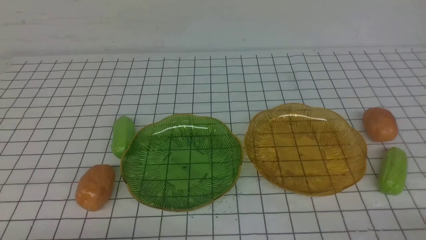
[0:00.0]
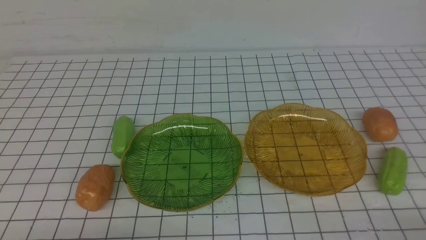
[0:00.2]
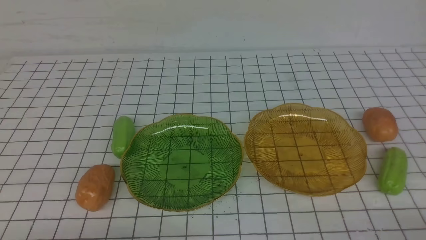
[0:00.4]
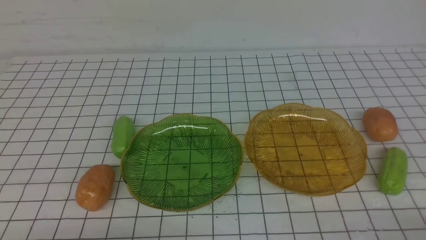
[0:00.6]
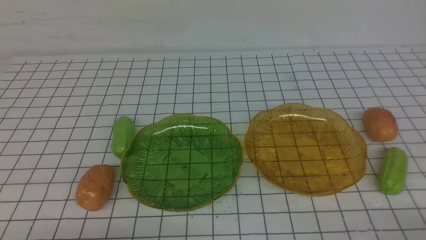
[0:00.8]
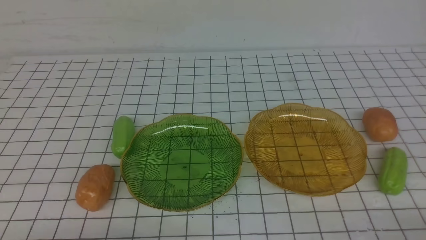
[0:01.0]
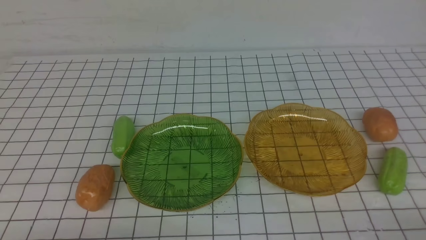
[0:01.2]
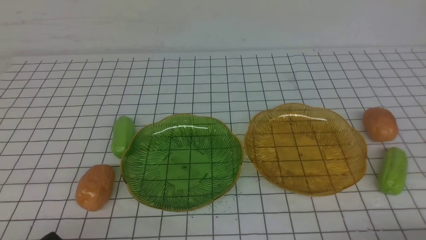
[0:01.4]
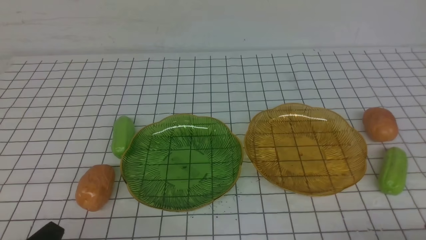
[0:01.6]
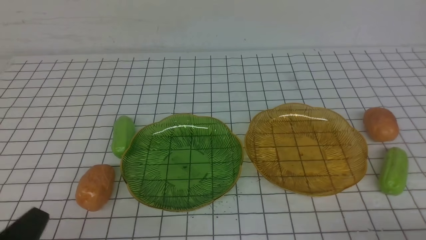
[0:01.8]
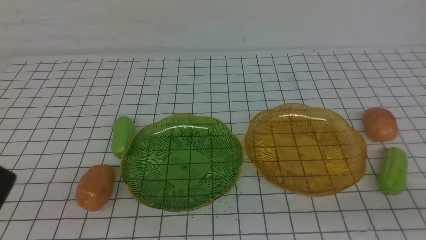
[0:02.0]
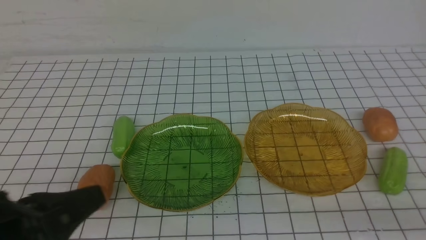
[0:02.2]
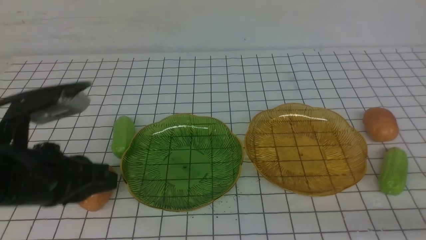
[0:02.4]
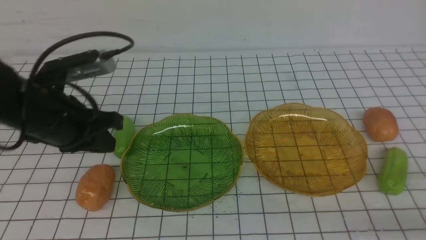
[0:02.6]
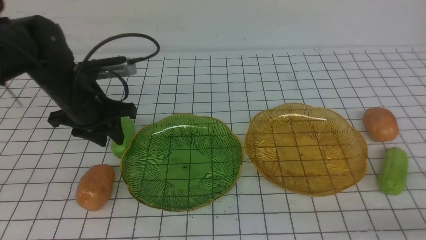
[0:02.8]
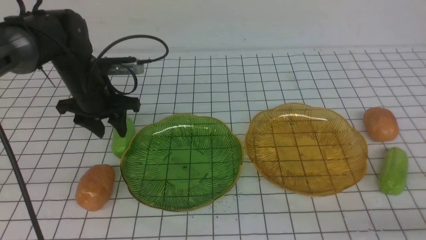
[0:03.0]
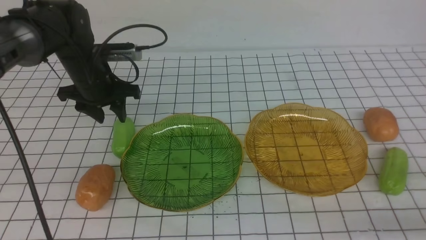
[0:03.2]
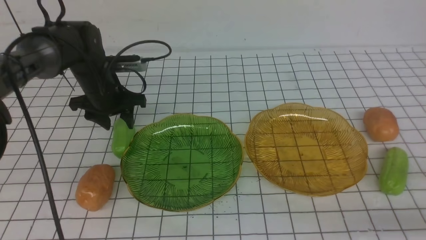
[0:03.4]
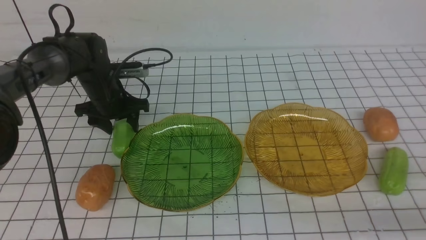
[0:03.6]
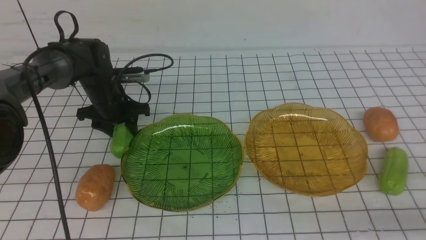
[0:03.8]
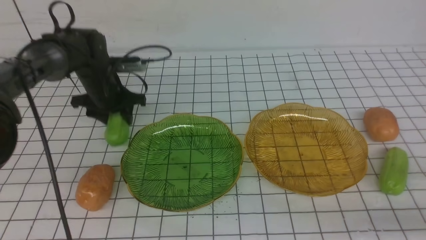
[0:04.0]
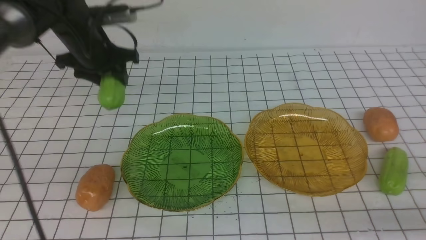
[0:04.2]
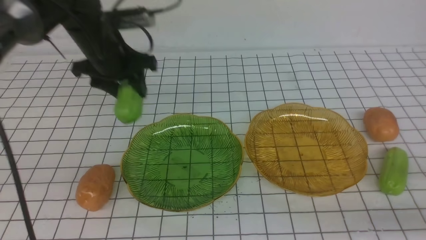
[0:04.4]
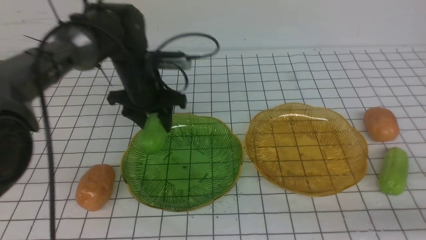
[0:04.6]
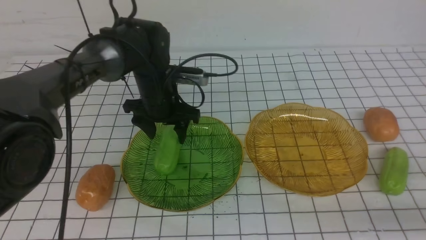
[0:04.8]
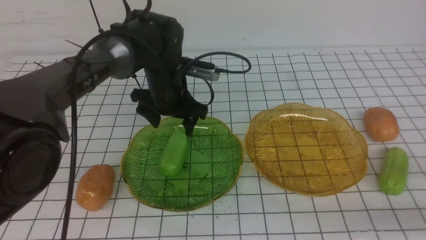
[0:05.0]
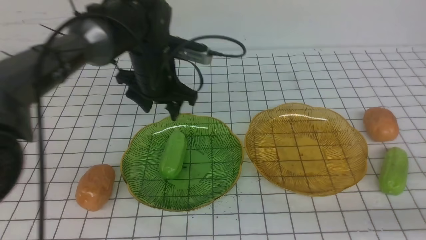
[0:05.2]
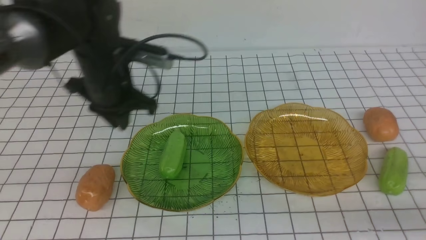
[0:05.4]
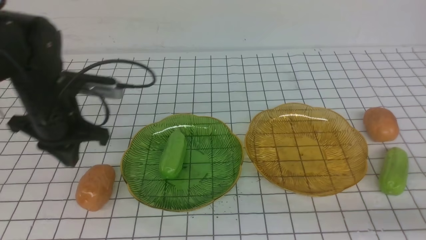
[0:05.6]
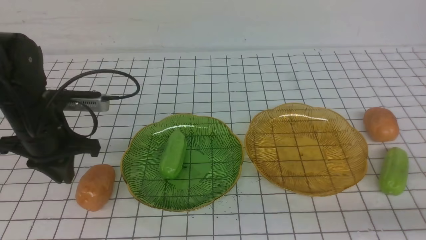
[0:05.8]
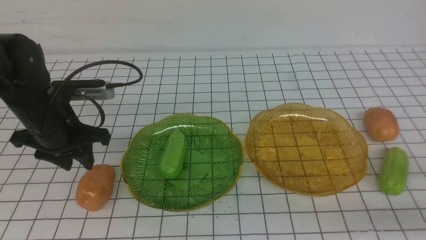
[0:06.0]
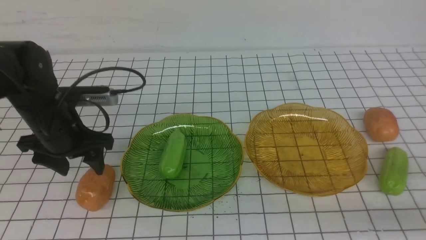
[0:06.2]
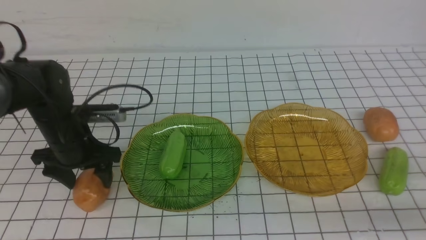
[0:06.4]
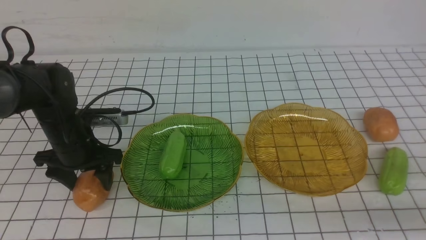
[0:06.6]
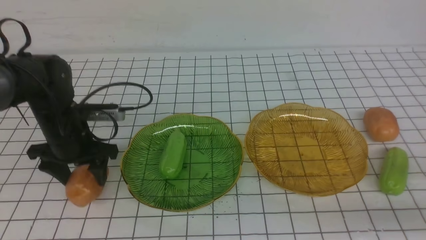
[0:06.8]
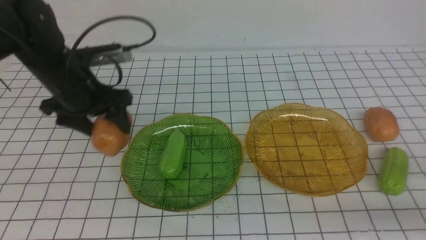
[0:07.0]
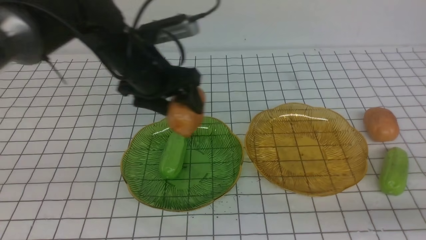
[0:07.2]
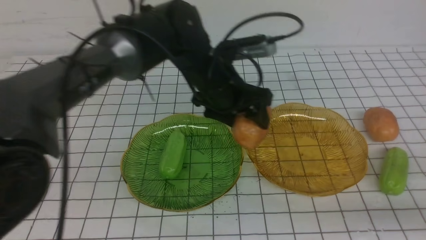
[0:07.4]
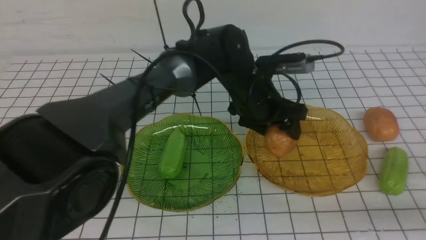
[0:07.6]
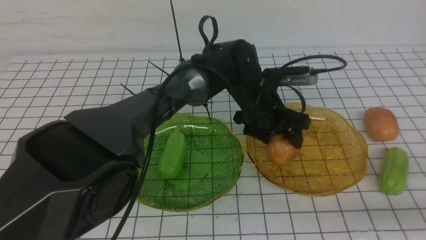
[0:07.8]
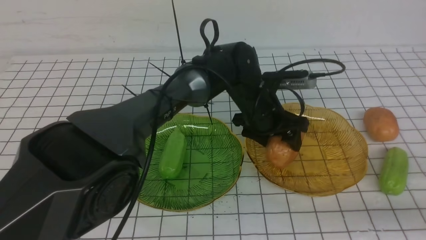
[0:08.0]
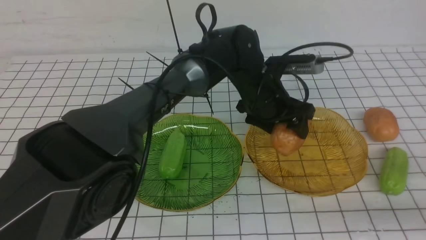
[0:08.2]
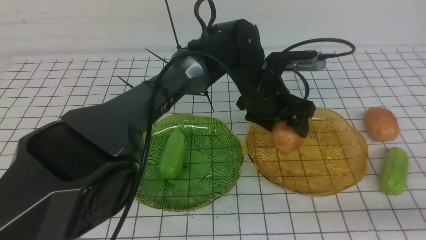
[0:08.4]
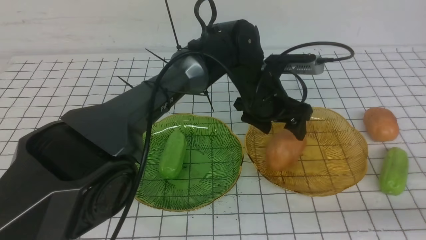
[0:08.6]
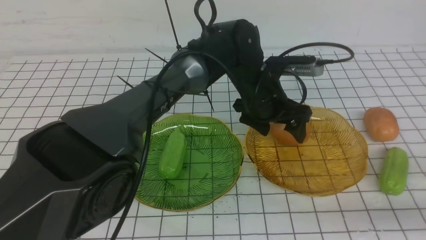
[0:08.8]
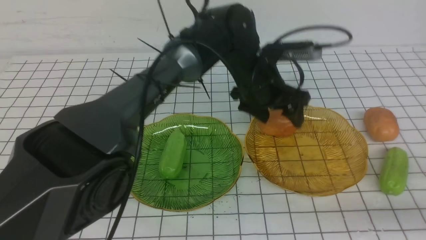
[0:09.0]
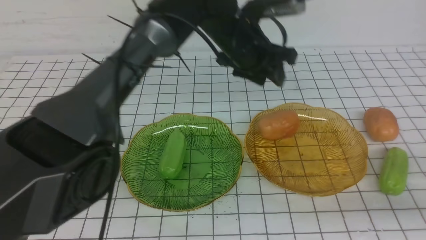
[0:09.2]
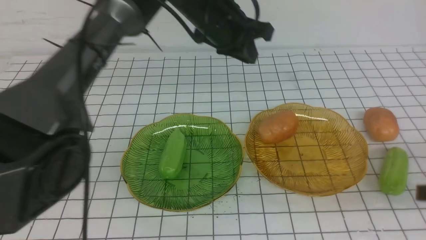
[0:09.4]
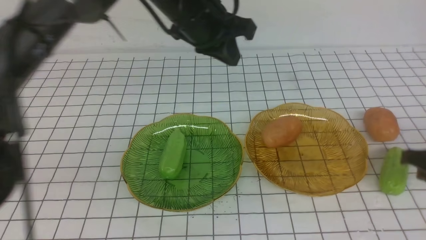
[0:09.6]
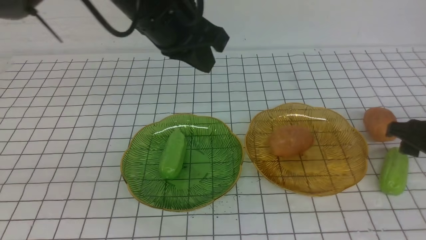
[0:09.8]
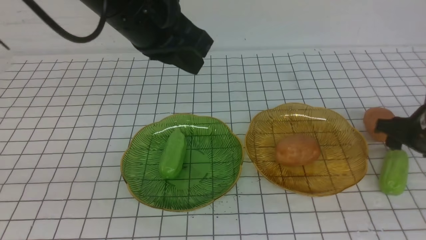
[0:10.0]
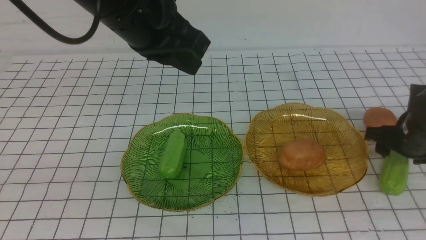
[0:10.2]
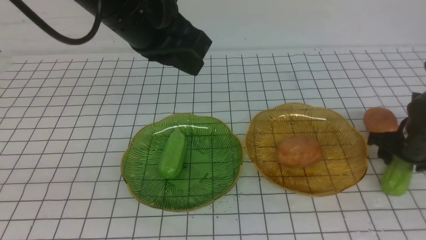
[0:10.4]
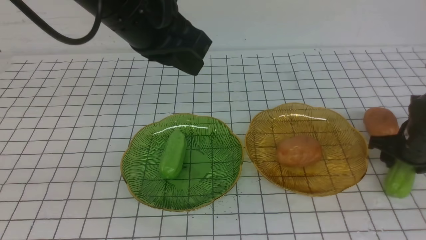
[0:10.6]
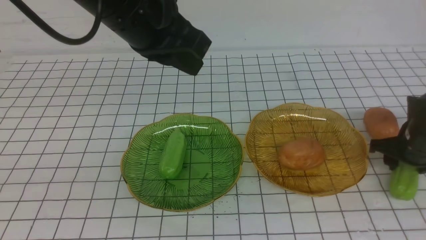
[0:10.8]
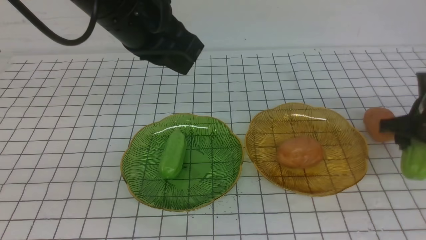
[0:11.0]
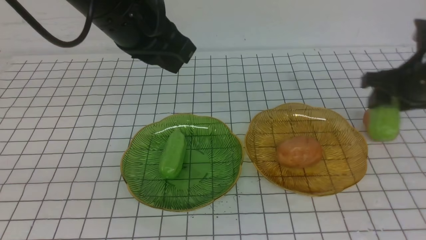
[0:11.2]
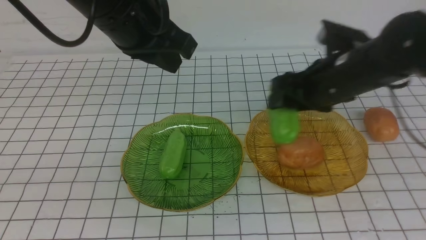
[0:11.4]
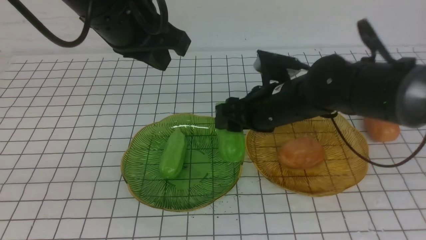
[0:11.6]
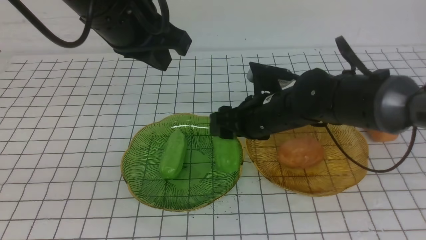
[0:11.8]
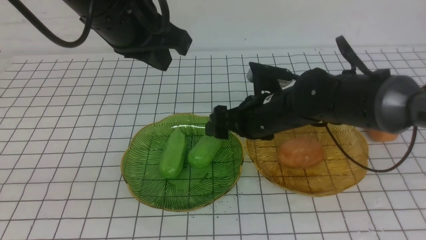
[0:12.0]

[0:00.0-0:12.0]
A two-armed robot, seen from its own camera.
Step, 0:00.0 to 0:04.8: use the left arm to grab a chayote and put it into the left plate.
Step, 0:05.0 to 0:09.0: Grab a potato with your left arm and put it on the right plate.
0:01.6 to 0:03.0: The left gripper heads forward, covering approximately 35 cm, and opens, while the right gripper heads upward and forward, covering some 10 cm.
0:03.0 to 0:04.4: The left gripper goes downward and returns, approximately 5 cm each way.
0:04.4 to 0:06.0: The left gripper moves backward and to the left, about 15 cm, and closes, then reopens.
0:06.0 to 0:07.6: The left gripper heads to the right, covering some 30 cm.
0:07.6 to 0:09.0: There are only small adjustments of the grippers.
0:09.0 to 0:10.4: The left gripper shifts some 25 cm upward, to the left and backward, and closes, while the right gripper heads forward and downward, covering approximately 25 cm, and opens.
0:10.4 to 0:12.0: The right gripper shifts roughly 25 cm to the left.

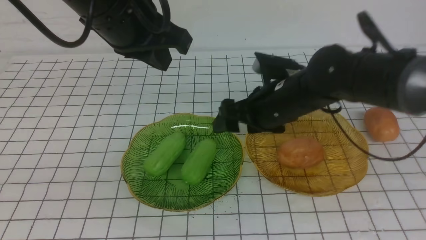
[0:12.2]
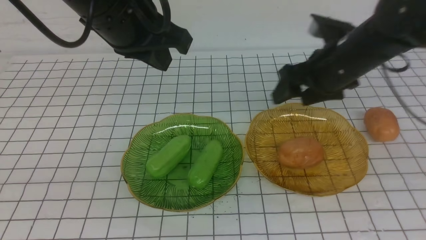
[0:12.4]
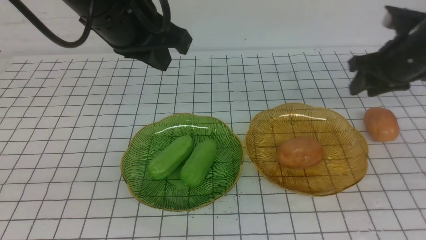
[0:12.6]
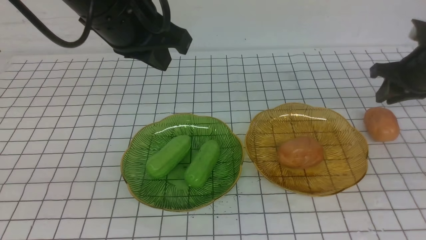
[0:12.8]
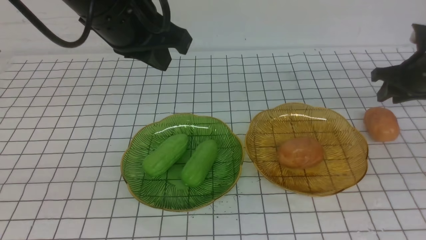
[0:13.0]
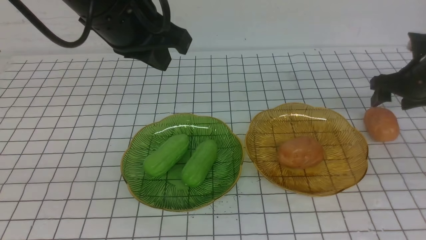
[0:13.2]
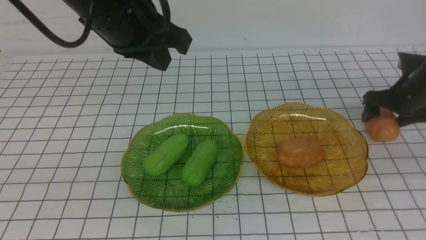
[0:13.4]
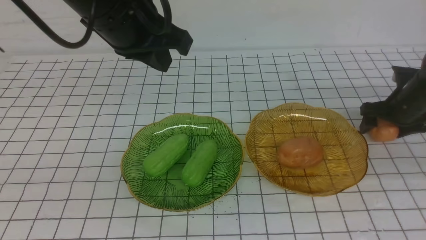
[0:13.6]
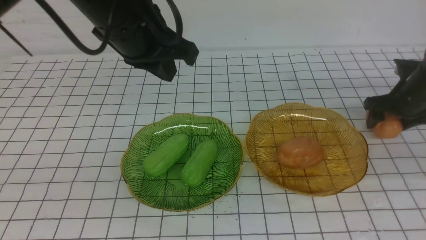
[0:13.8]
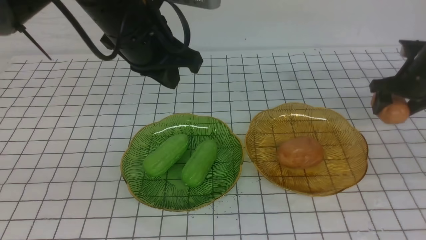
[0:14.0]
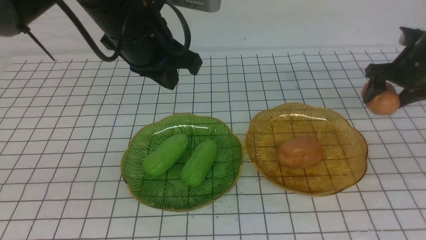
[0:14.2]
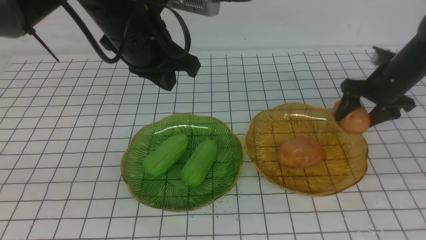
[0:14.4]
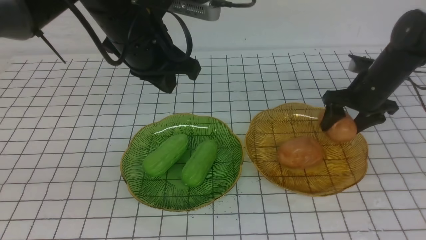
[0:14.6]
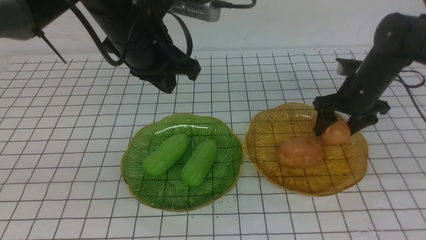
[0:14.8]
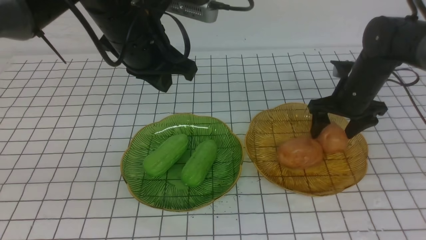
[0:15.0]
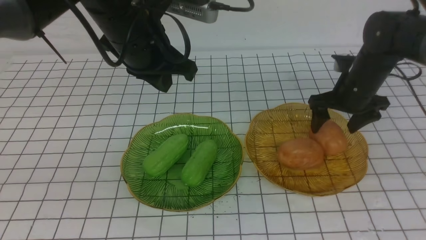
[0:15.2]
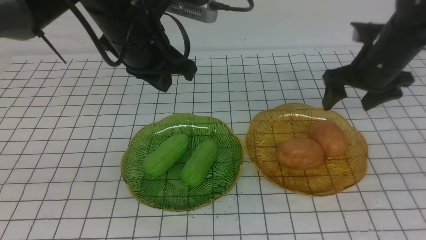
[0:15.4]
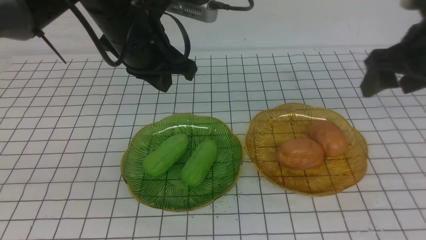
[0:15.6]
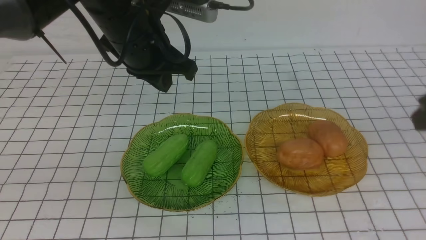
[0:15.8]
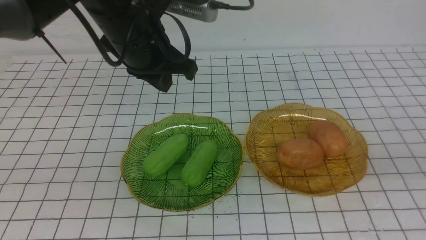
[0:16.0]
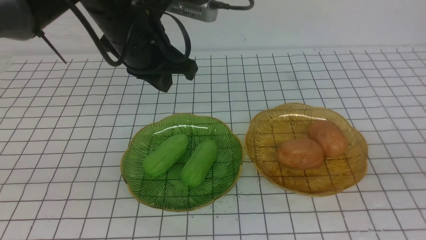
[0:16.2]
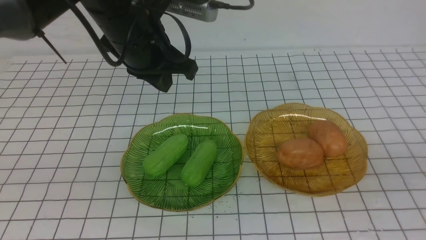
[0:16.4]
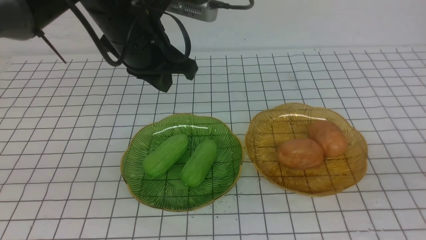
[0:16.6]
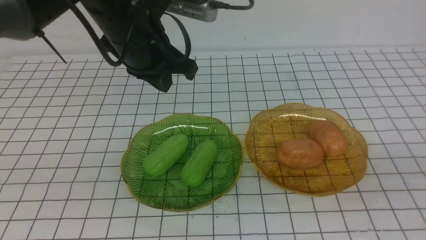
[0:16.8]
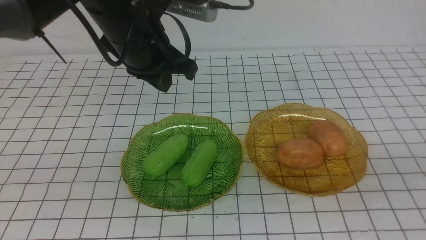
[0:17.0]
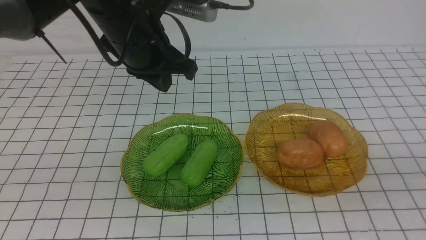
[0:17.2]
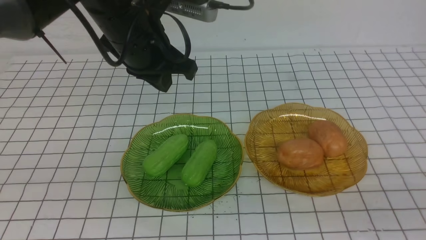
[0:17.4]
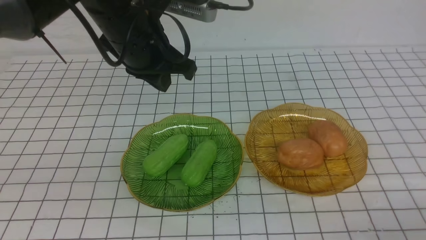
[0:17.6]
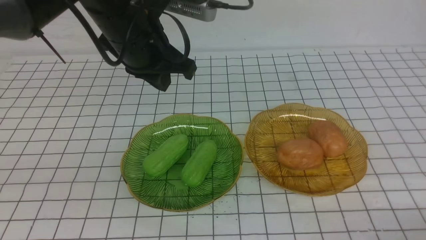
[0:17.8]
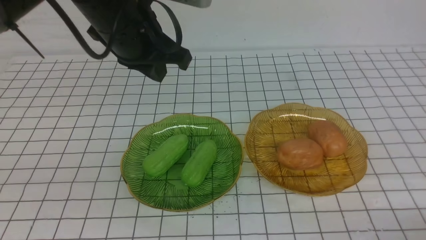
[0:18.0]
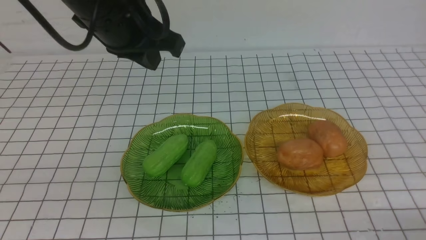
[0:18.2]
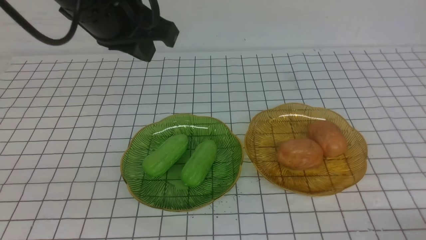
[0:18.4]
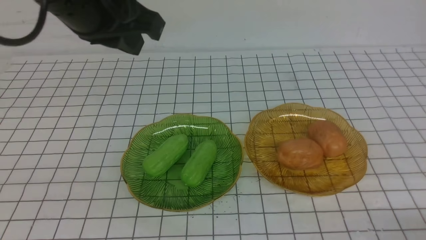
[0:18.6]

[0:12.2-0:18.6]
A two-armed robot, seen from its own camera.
Step, 0:12.2 to 0:15.2: Grab a potato with your right arm and put it on the right plate.
0:12.2 to 0:13.8: The right gripper moves to the right, about 25 cm, and closes, then reopens.
0:13.8 to 0:15.4: The right gripper is displaced upward, to the left and backward by approximately 20 cm.
0:15.4 to 0:17.0: The right gripper travels backward by some 30 cm, and closes its fingers.
0:17.0 to 0:18.6: The right gripper goes roughly 10 cm downward. The left gripper moves backward and upward, approximately 10 cm.
